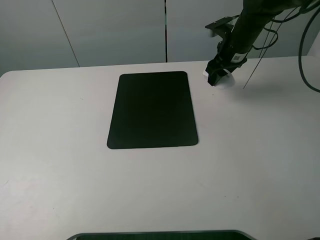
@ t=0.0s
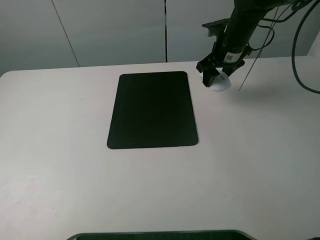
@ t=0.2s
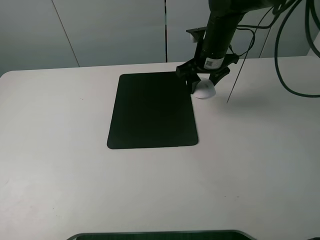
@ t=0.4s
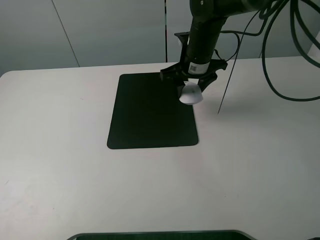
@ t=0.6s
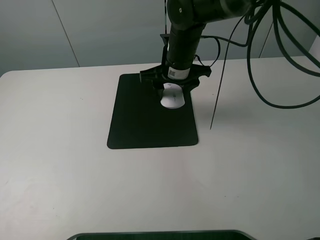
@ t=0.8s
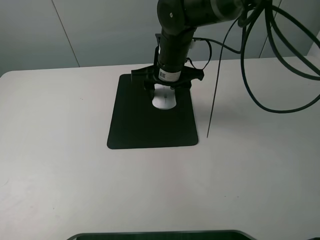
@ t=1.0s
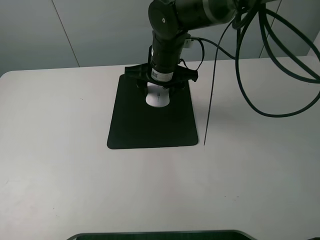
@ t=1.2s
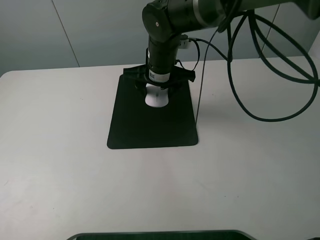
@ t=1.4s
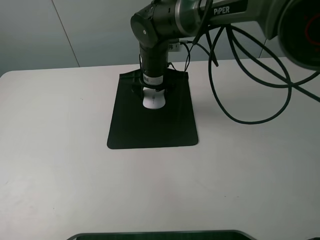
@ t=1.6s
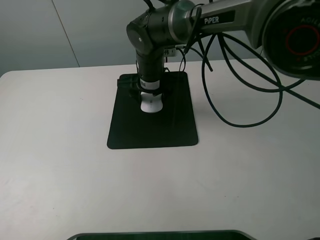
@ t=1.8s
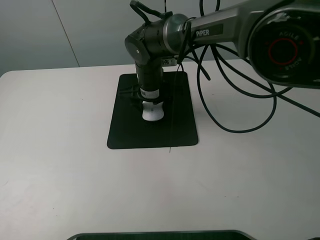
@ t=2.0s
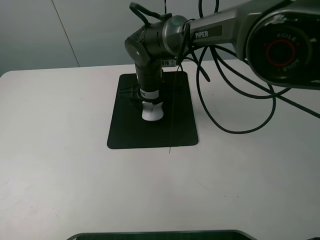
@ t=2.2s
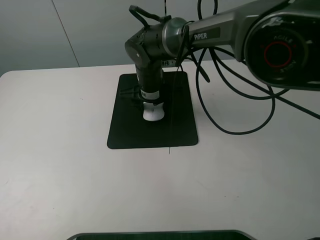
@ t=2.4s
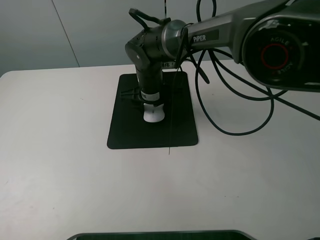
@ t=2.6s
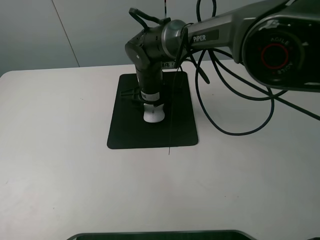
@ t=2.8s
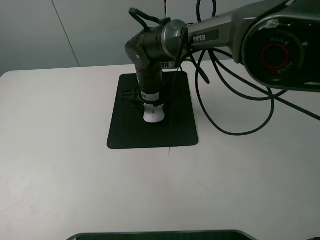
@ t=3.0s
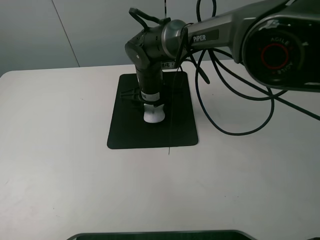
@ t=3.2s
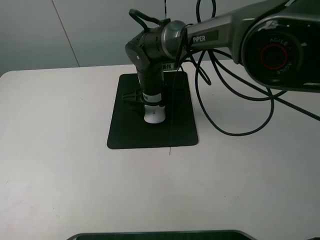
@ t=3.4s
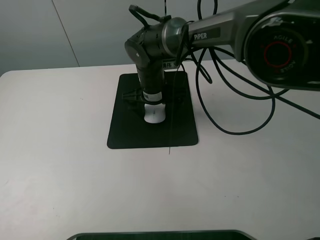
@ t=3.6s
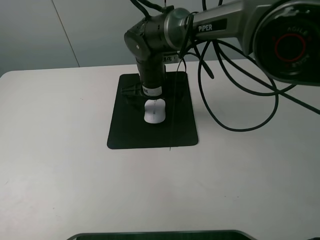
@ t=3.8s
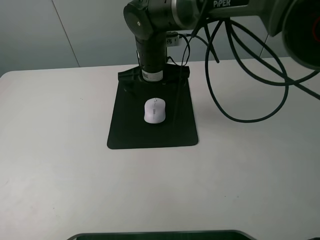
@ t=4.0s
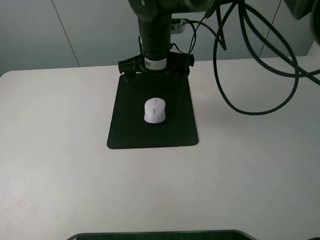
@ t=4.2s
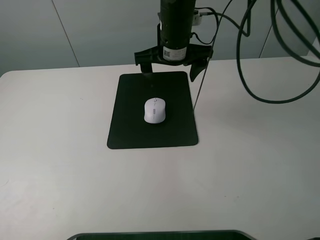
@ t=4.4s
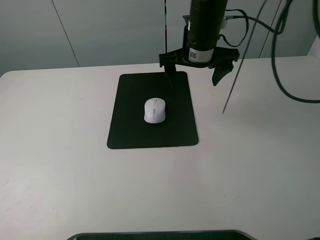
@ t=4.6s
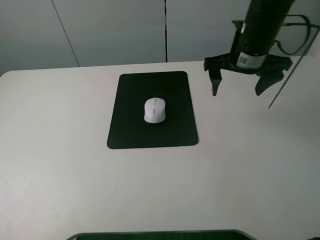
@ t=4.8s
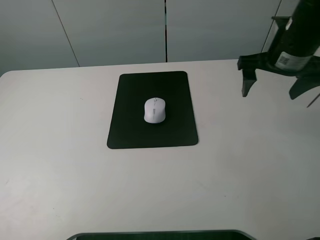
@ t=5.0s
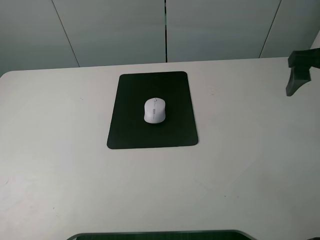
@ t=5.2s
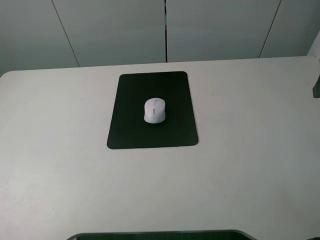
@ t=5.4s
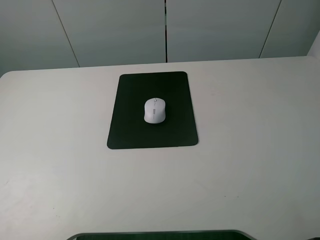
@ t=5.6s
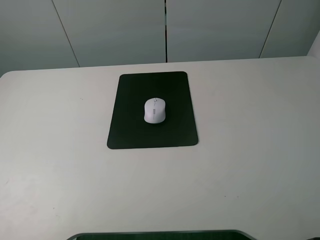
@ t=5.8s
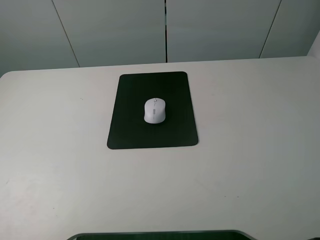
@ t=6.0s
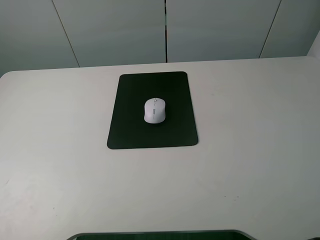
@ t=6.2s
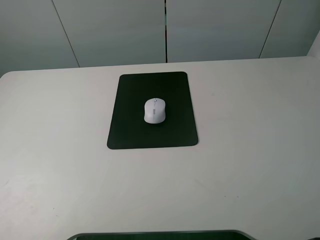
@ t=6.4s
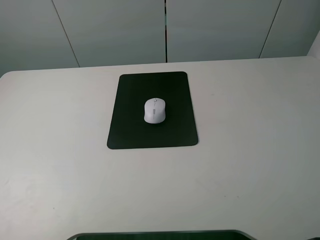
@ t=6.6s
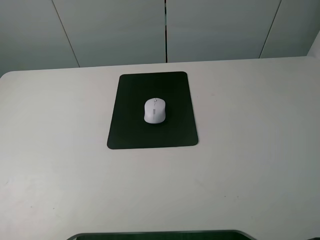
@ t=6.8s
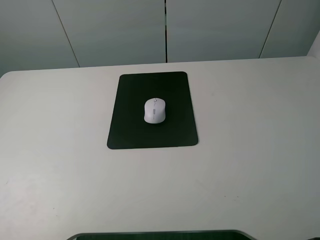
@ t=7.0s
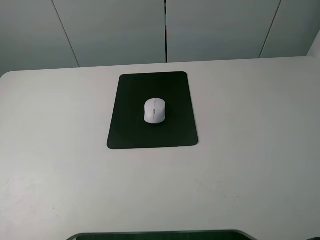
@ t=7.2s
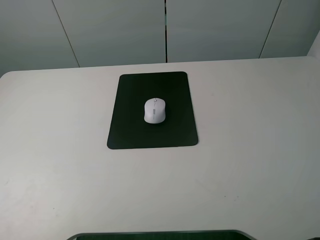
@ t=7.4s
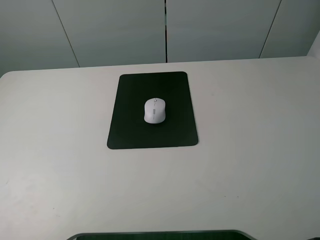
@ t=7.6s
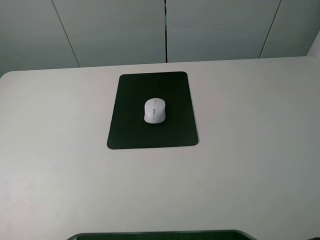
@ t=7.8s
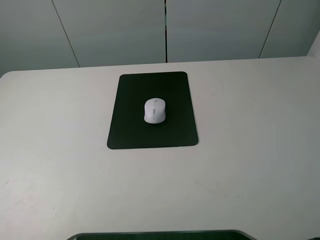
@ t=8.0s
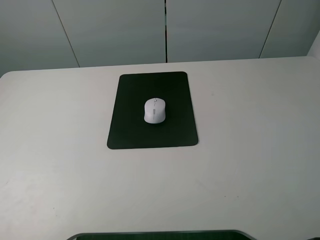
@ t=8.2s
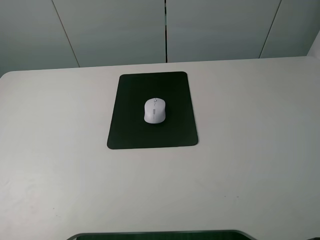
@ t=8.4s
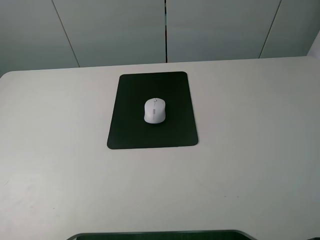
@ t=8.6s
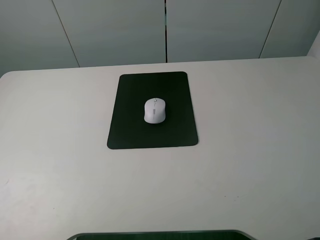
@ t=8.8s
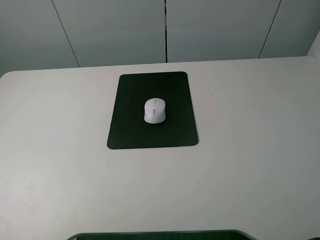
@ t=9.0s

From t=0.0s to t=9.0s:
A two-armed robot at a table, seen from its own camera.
Step, from t=0.0s to t=3.6s: Place the mouse on the mouse mat with the right gripper.
From t=0.0s to t=1.6s: The right gripper moves to the left, roughly 20 cm.
From t=1.6s to t=3.0s: There are only small adjustments of the grippers.
From t=3.0s to t=4.4s: The right gripper shifts some 15 cm upward and to the right, and opens up.
From t=4.4s to t=6.0s: The right gripper moves backward and to the right, roughly 35 cm.
From t=7.6s to t=9.0s: Both grippers stay about where they are.
